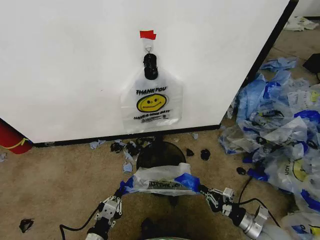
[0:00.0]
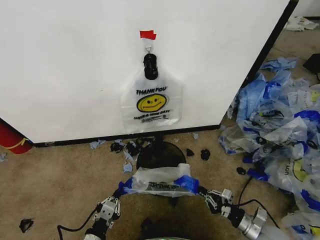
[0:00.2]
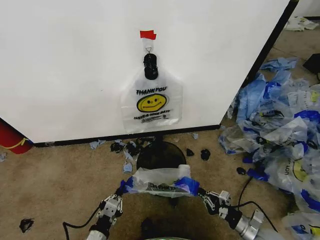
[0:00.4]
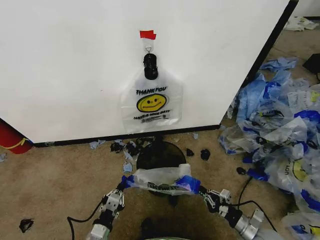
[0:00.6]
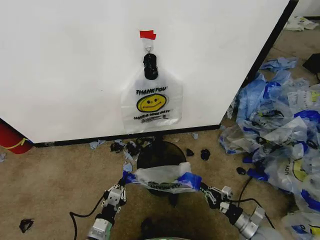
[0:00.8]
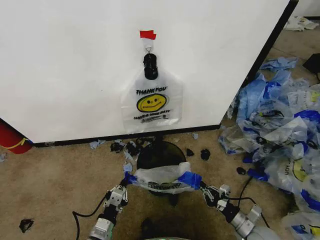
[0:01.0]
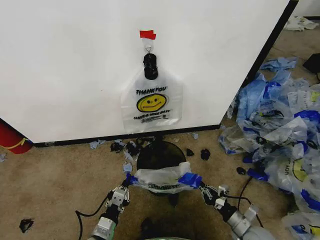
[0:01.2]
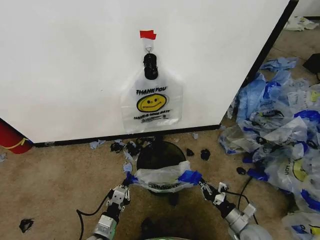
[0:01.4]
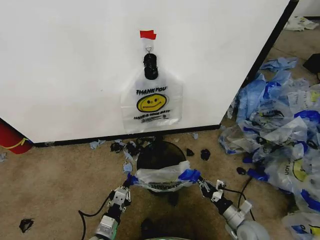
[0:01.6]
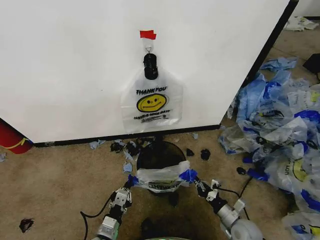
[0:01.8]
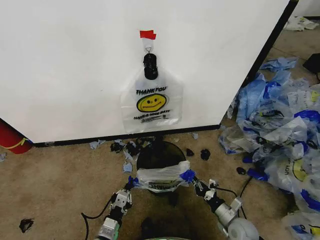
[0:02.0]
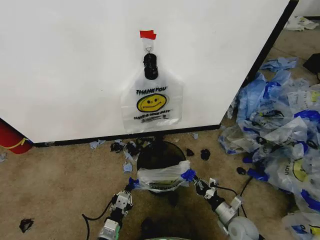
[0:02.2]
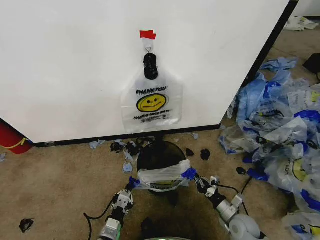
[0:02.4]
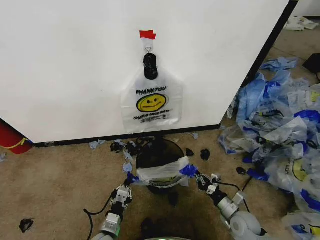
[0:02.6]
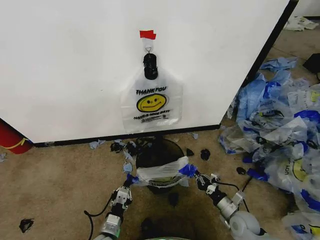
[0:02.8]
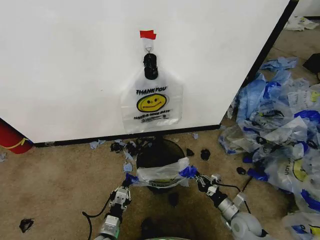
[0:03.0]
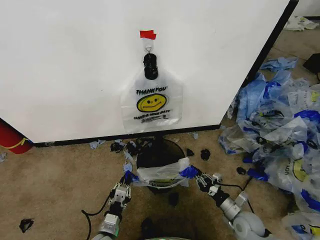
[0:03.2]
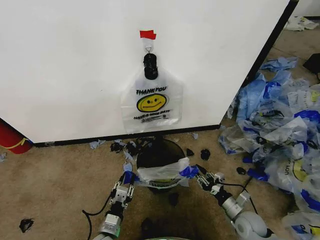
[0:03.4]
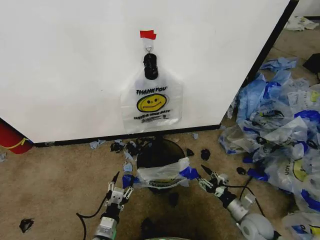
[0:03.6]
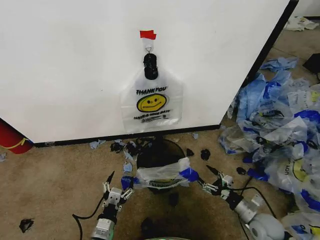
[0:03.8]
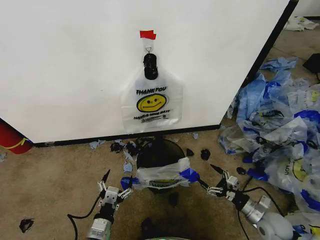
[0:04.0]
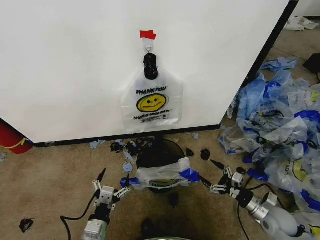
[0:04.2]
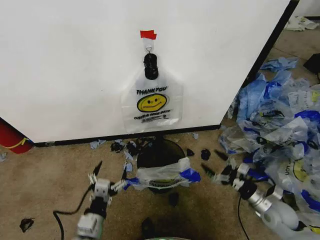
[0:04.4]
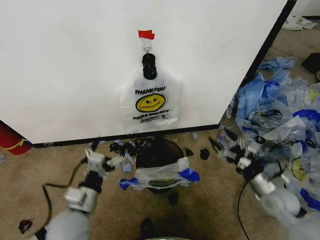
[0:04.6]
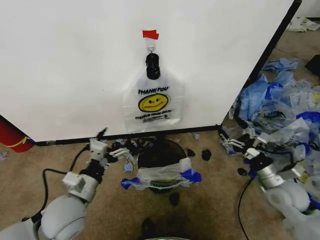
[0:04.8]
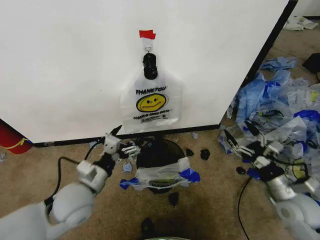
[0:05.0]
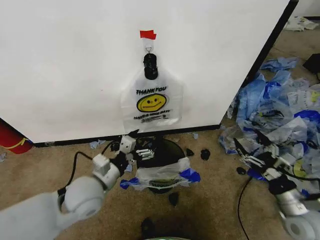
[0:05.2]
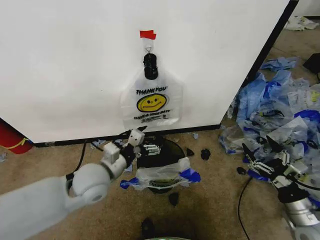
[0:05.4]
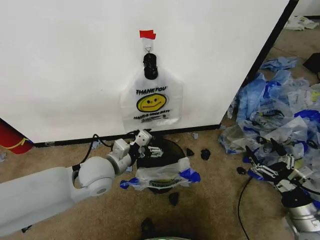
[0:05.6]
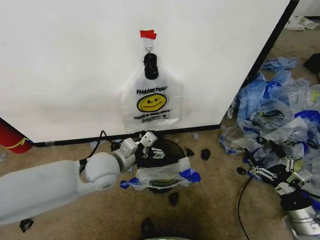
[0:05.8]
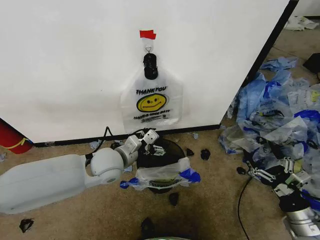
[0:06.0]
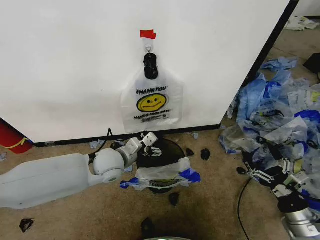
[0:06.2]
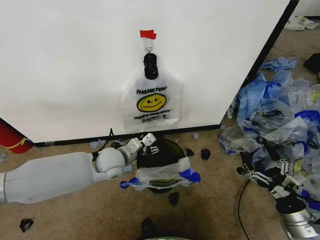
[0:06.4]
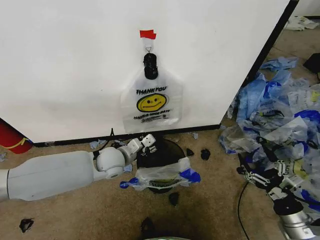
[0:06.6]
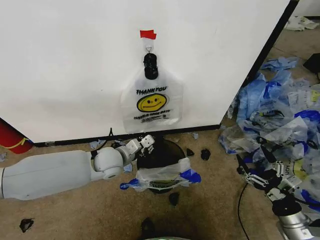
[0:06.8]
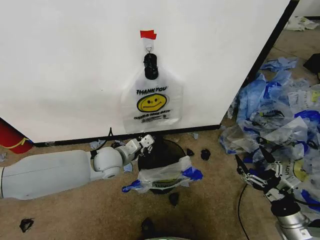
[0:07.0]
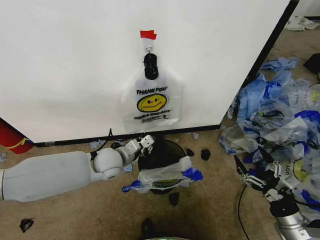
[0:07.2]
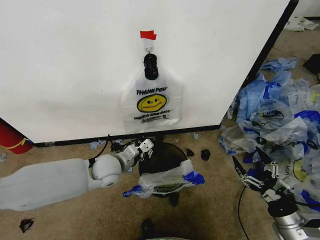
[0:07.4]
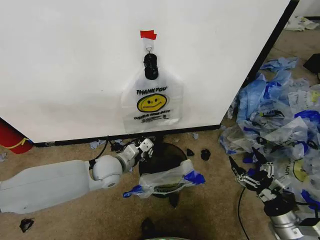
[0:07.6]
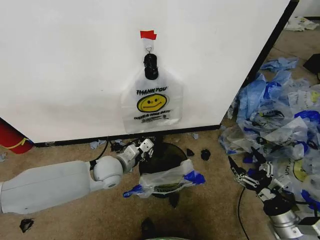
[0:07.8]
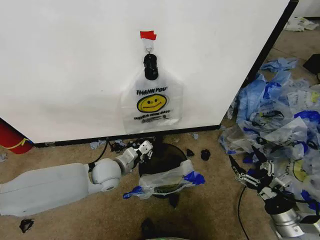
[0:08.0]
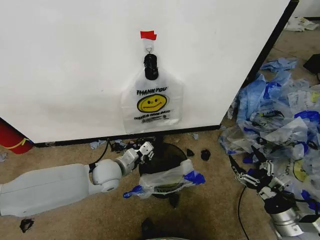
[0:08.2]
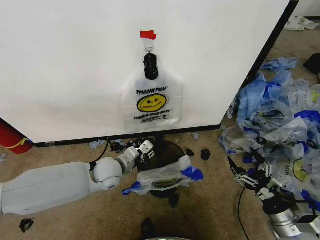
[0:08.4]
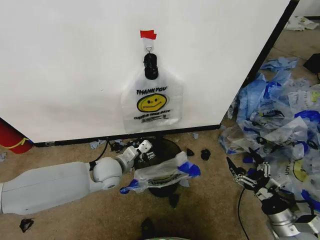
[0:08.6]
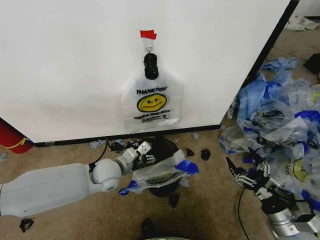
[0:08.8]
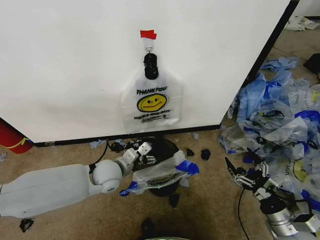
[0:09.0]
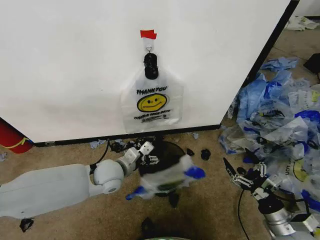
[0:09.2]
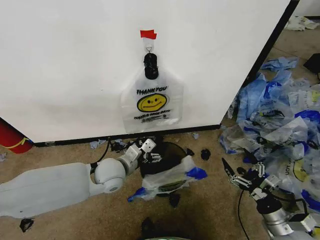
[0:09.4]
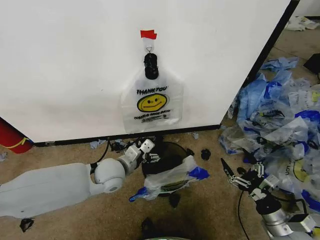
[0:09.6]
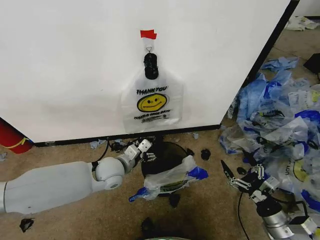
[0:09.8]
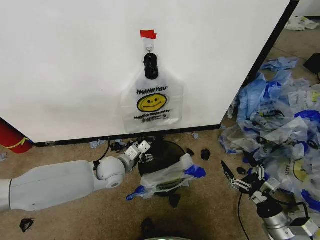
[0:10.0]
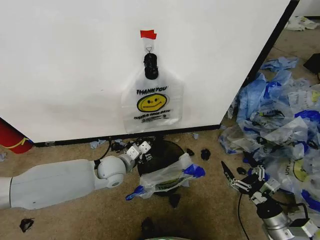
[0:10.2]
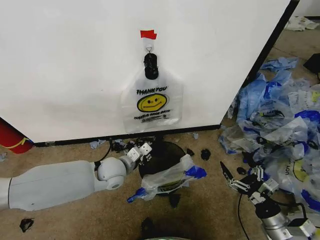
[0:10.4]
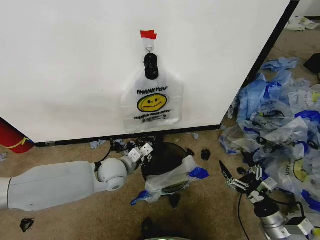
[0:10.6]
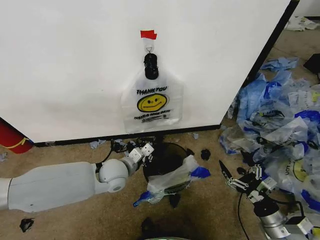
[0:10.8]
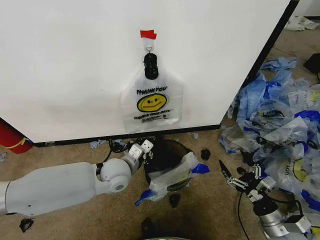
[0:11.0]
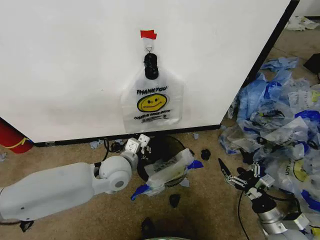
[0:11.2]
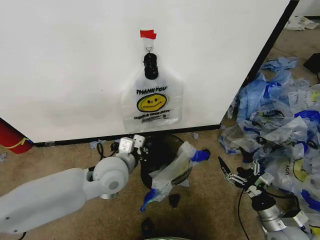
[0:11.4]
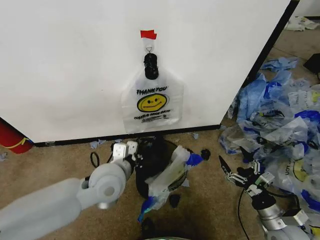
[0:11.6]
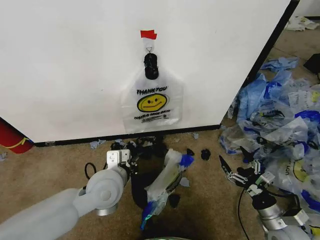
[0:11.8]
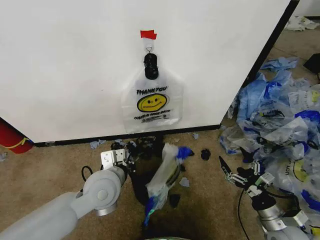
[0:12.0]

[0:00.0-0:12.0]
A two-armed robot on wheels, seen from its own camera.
Task of the whole recording: Pick up the garbage bag from the wall and place it over the trash bin.
0:00.0 to 0:01.6: The right gripper ends up some 5 cm from where it was; the left gripper goes about 5 cm forward.
0:01.6 to 0:03.0: The grippers stay close to where they were, moving slightly.
0:03.0 to 0:04.4: The right gripper is displaced upward and to the right by approximately 10 cm, and opens, while the left gripper is displaced upward by roughly 10 cm, and opens up.
0:04.4 to 0:06.0: The right gripper travels backward and upward by approximately 10 cm, while the left gripper is displaced forward and upward by about 25 cm.
0:06.0 to 0:07.6: The left gripper goes some 5 cm downward, and closes.
0:07.6 to 0:09.0: The left gripper opens up.
0:09.0 to 0:10.4: The left gripper closes up.
0:10.4 to 0:12.0: The left gripper travels backward and upward by approximately 10 cm.

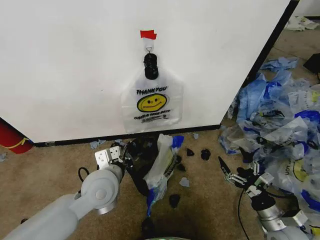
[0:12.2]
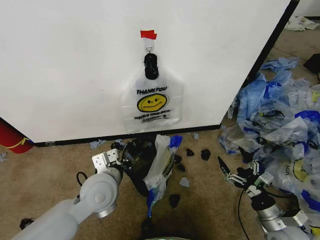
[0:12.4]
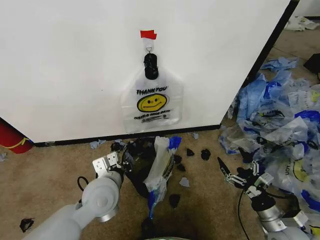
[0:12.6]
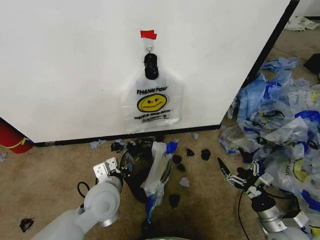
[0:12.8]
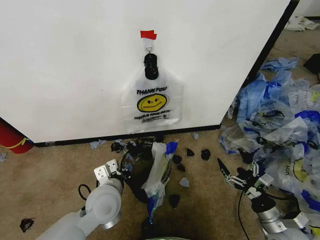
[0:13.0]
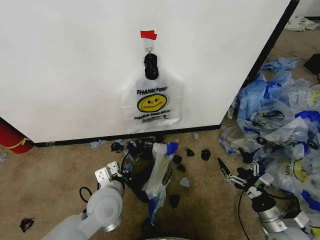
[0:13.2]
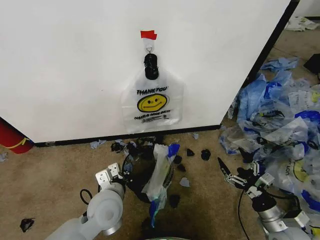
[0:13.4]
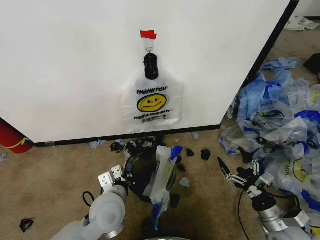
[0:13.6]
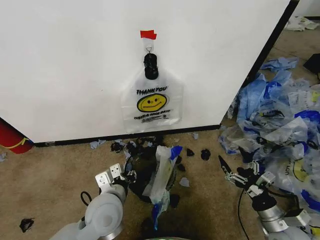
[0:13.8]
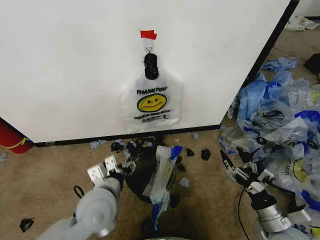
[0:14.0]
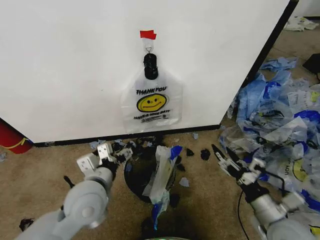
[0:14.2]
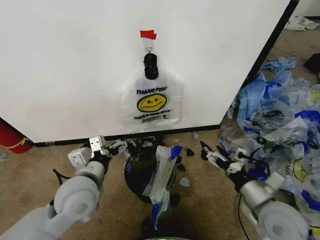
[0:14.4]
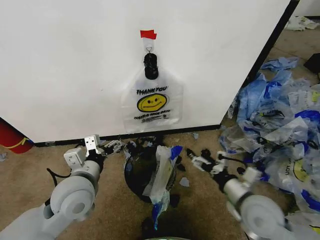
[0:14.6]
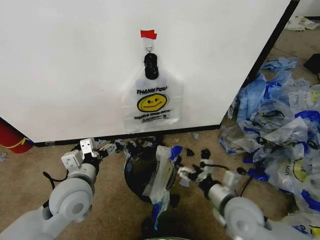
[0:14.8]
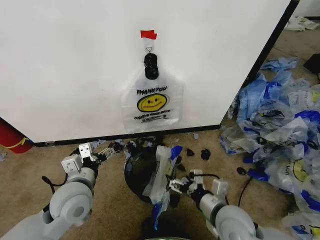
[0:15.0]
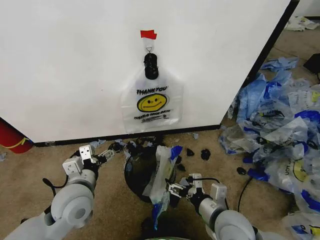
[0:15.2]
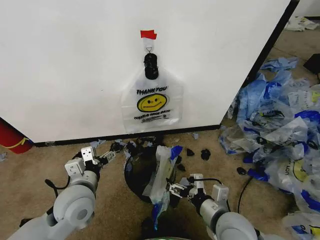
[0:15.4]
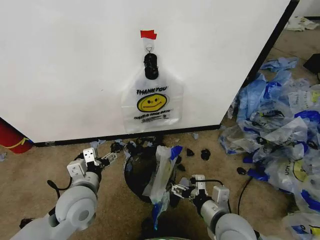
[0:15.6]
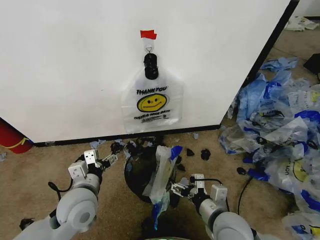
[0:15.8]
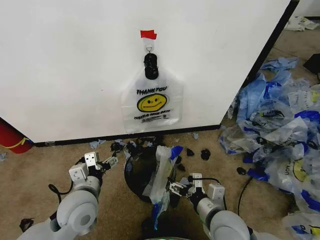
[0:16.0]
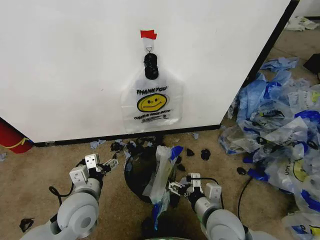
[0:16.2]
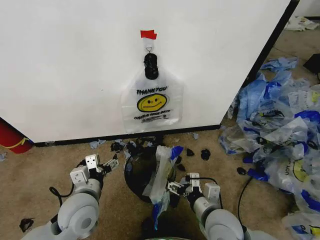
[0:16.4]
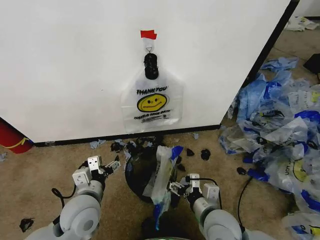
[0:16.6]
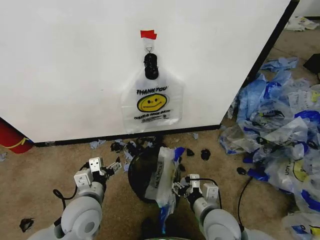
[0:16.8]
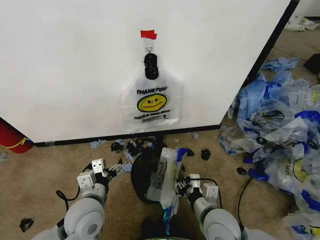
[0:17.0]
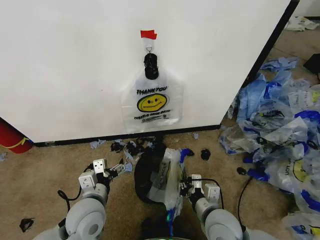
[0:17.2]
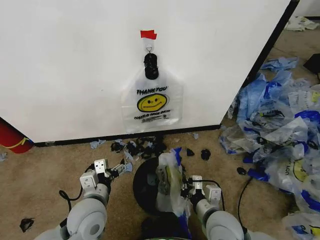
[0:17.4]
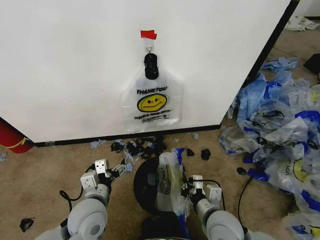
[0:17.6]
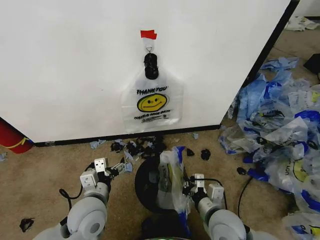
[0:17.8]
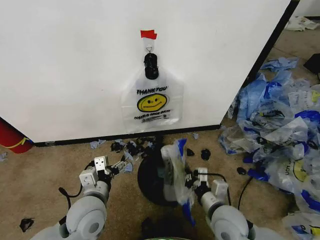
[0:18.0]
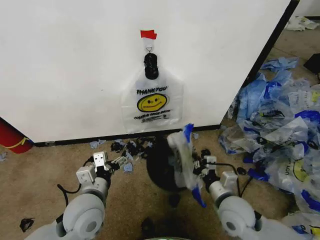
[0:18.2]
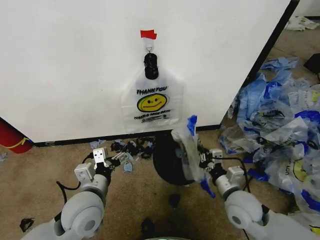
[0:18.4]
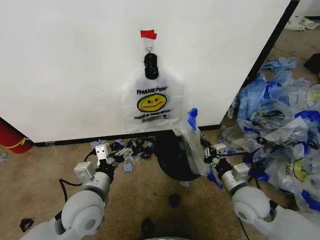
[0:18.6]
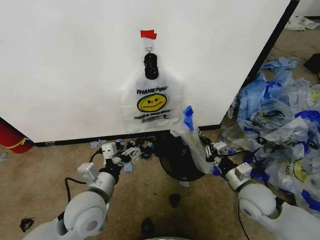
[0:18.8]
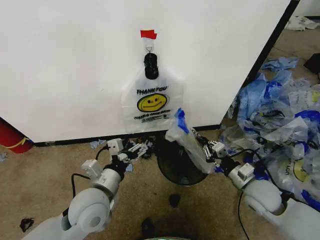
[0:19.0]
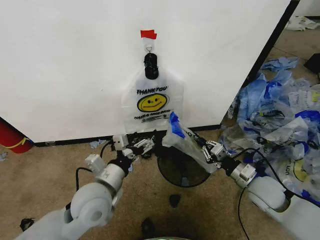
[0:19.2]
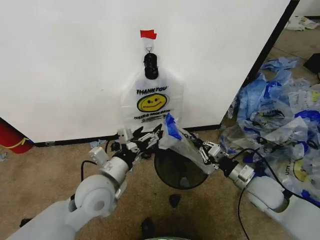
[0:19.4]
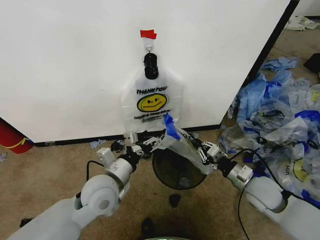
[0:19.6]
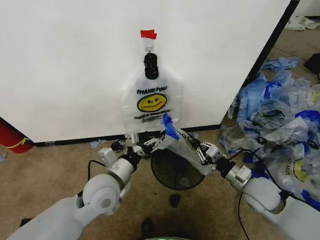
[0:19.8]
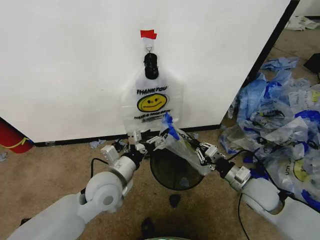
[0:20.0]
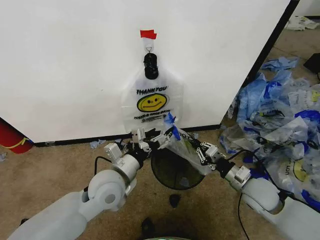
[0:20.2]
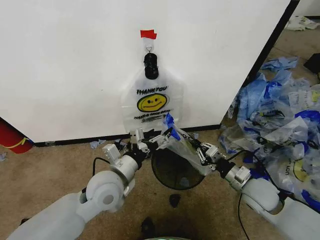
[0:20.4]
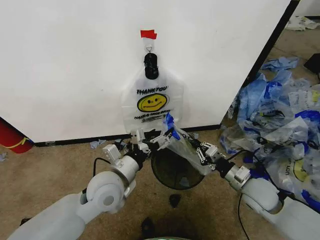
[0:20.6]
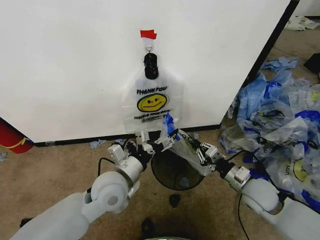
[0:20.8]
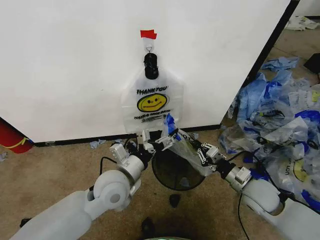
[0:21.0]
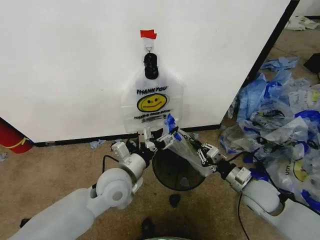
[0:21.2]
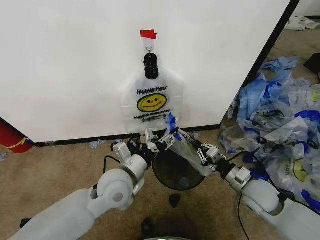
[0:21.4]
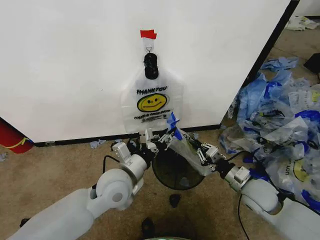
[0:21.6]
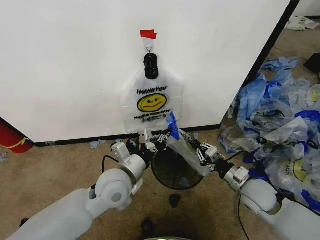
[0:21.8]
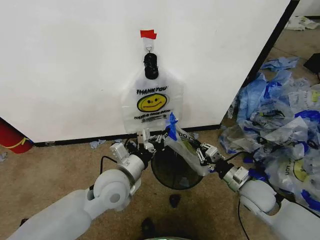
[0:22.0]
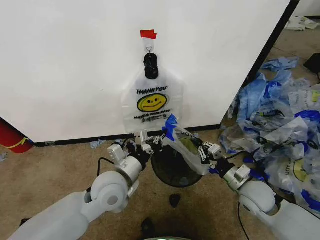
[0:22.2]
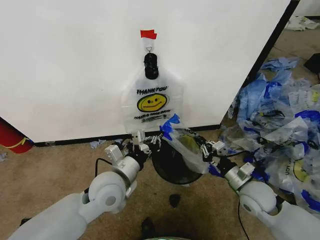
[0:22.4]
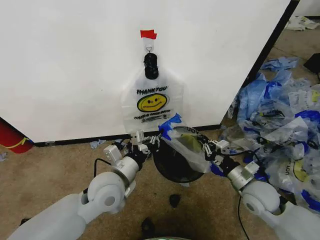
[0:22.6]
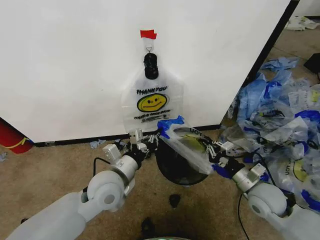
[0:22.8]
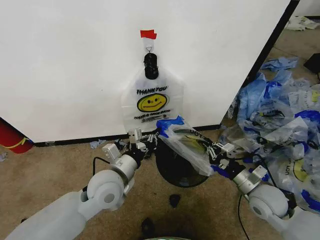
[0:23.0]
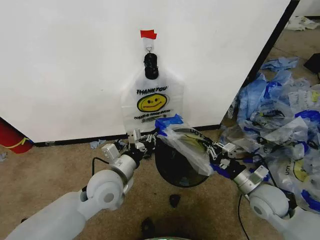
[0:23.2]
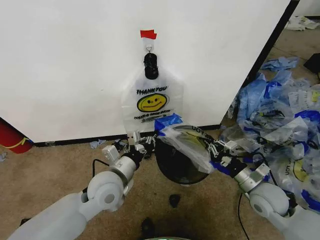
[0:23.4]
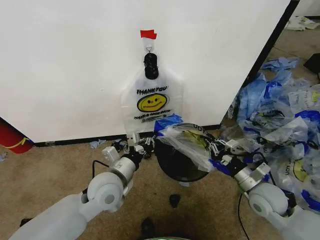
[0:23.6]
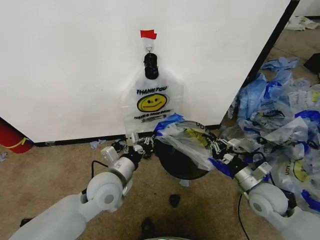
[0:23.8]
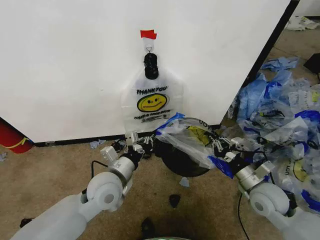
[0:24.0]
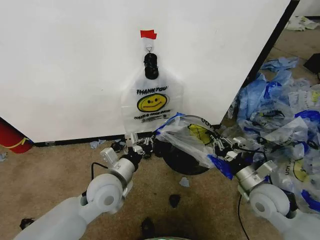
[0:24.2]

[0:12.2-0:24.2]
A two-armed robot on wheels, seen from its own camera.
Task of the whole recording: Pick up the garbage bag from the wall and place it over the trash bin.
0:12.2 to 0:13.8: The left gripper moves some 5 cm, and opens its fingers.
0:13.8 to 0:15.2: The left gripper is displaced to the left by roughly 10 cm, and opens its fingers. Meanwhile the right gripper shifts roughly 20 cm to the left.
0:15.2 to 0:16.6: The grippers make only small movements.
0:16.6 to 0:18.2: The right gripper is displaced to the right by some 5 cm, and closes its fingers.
0:18.2 to 0:19.8: The right gripper travels to the right and forward by some 10 cm; the left gripper changes place by approximately 5 cm.
0:19.8 to 0:21.2: There are only small adjustments of the grippers.
0:21.2 to 0:22.6: The left gripper closes.
0:22.6 to 0:24.2: The grippers make only small movements.
